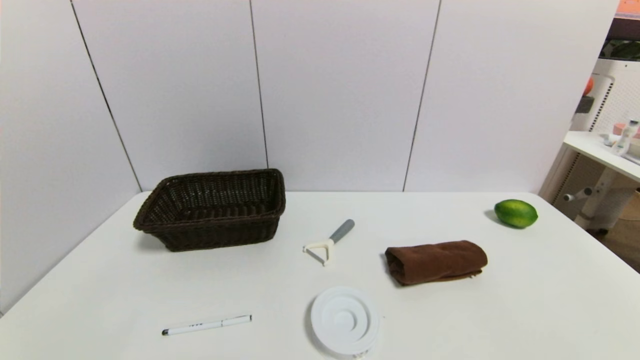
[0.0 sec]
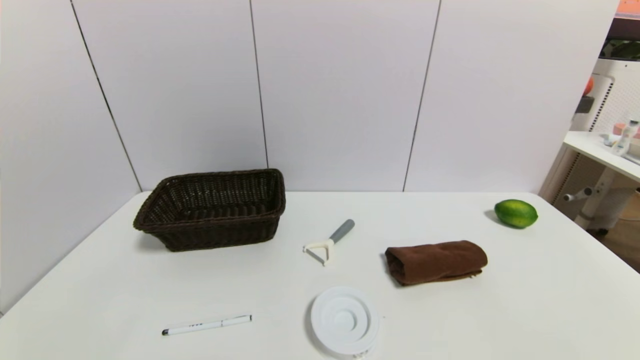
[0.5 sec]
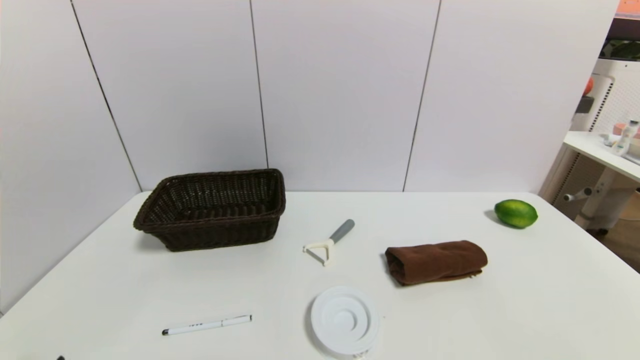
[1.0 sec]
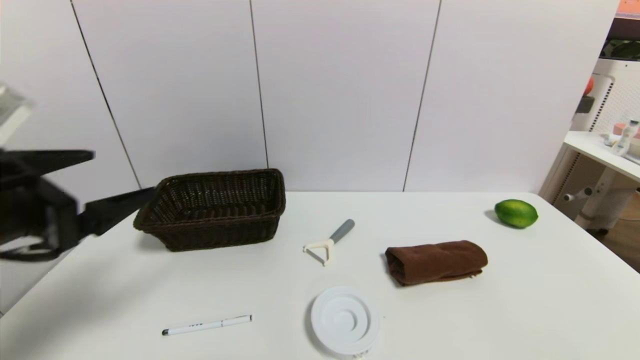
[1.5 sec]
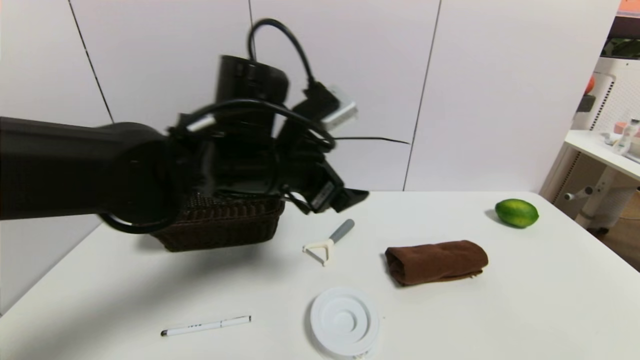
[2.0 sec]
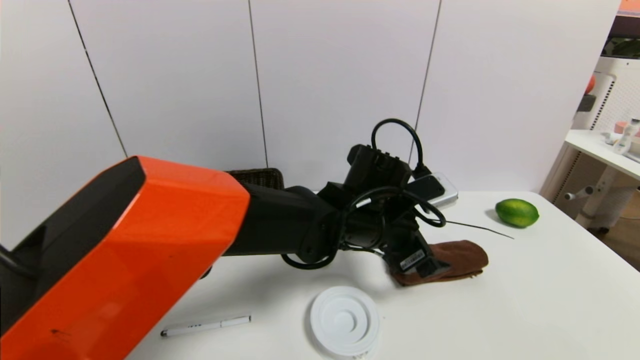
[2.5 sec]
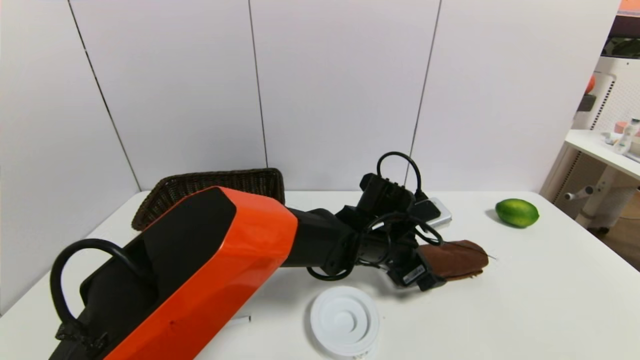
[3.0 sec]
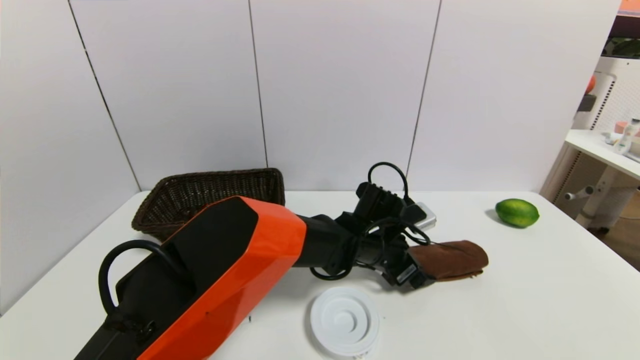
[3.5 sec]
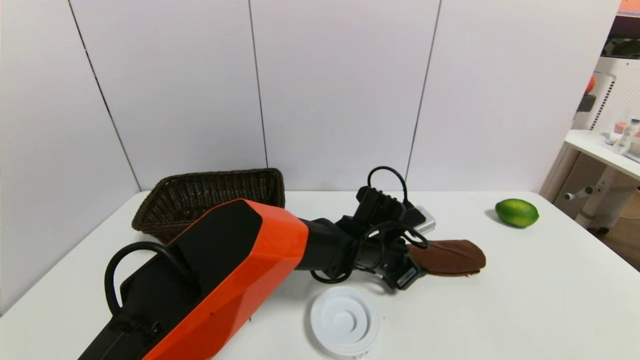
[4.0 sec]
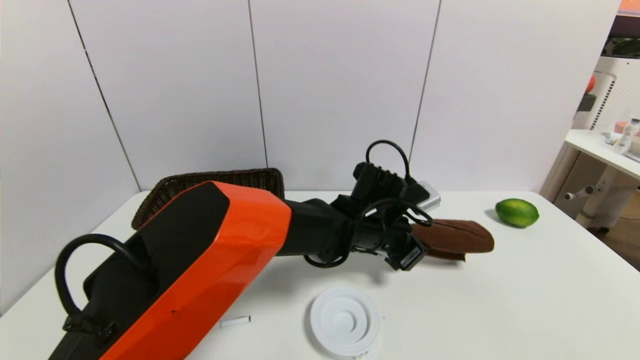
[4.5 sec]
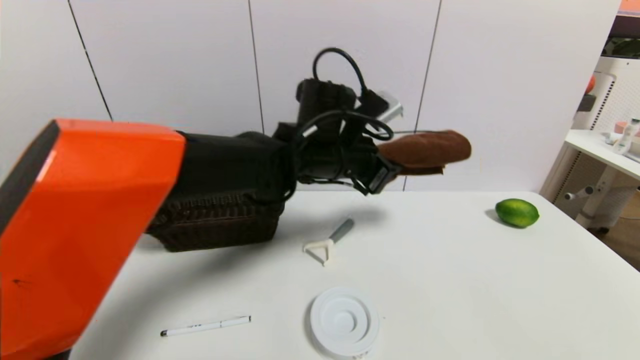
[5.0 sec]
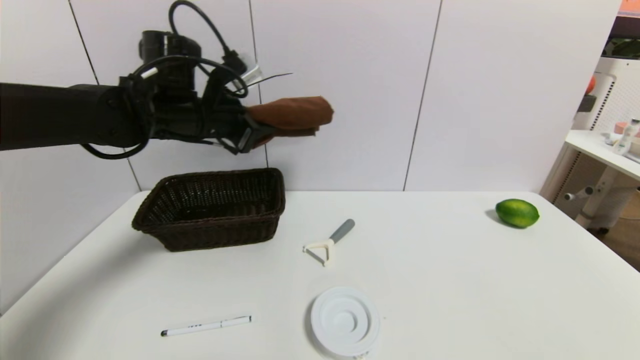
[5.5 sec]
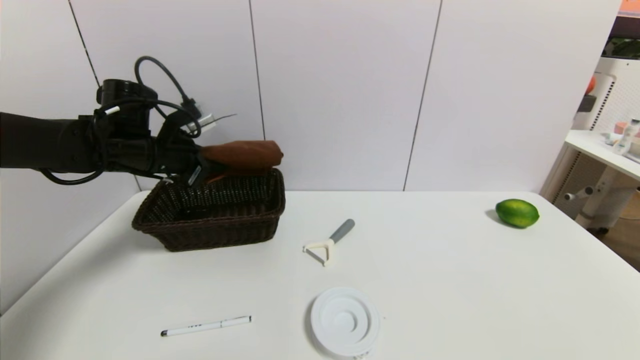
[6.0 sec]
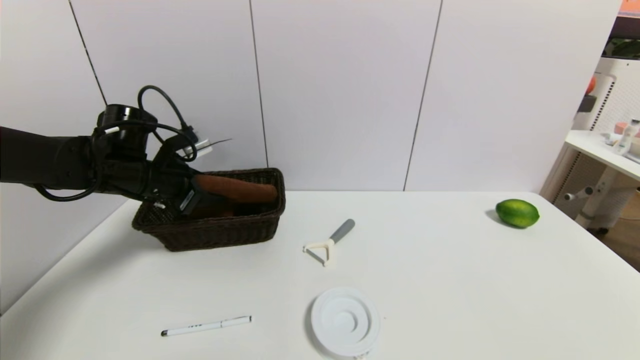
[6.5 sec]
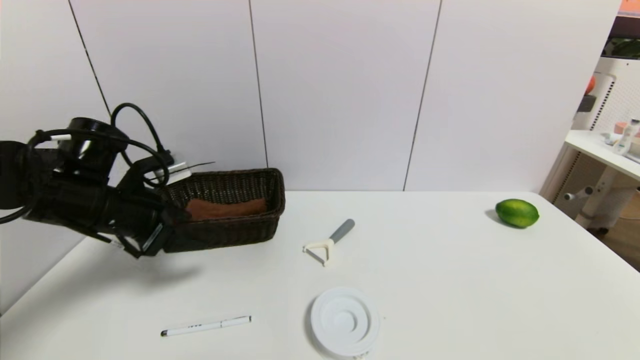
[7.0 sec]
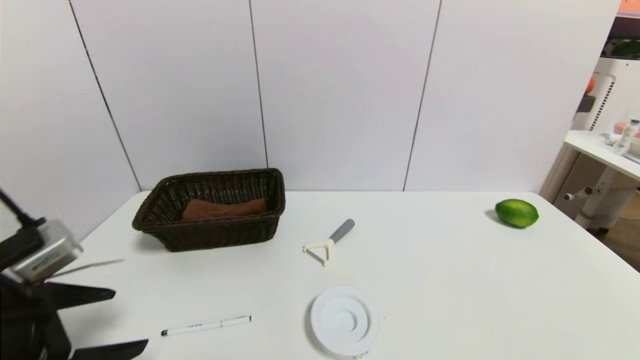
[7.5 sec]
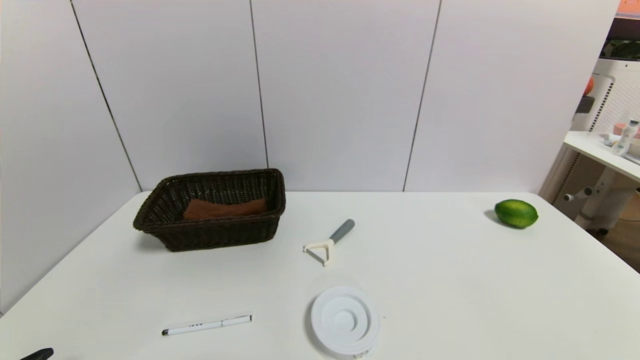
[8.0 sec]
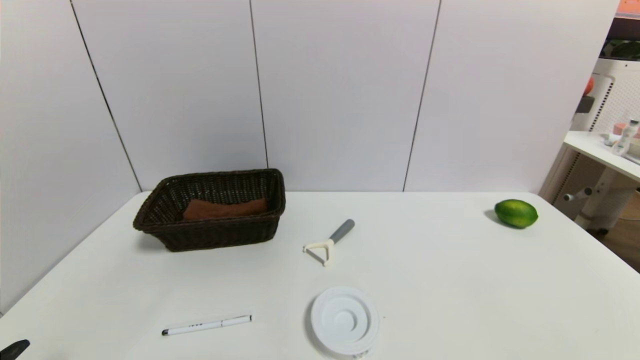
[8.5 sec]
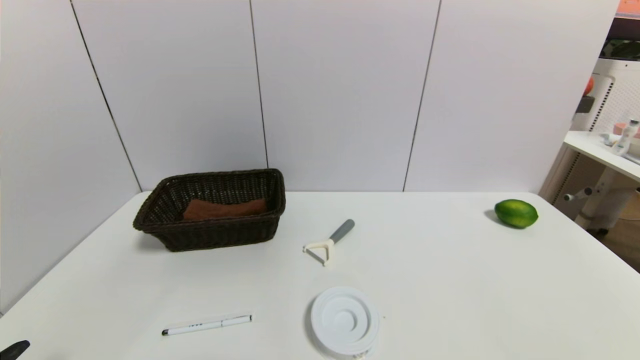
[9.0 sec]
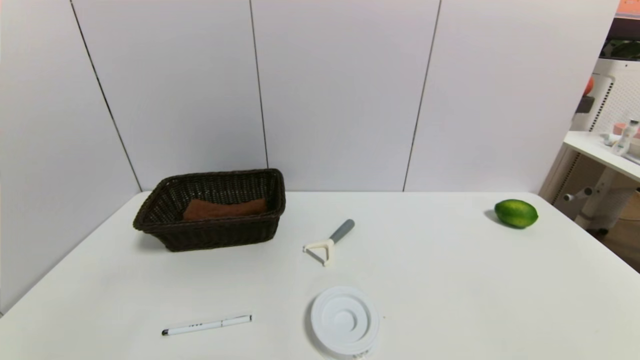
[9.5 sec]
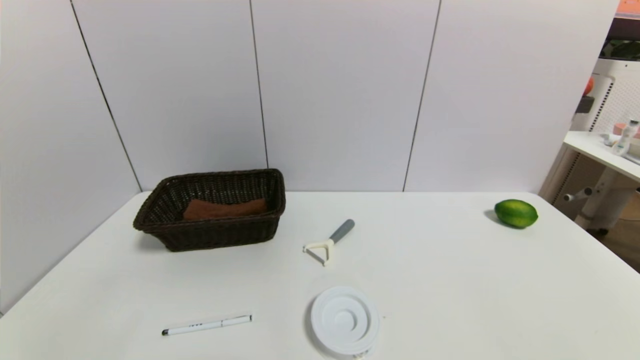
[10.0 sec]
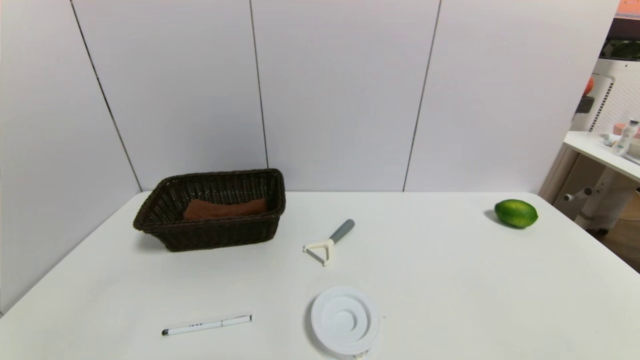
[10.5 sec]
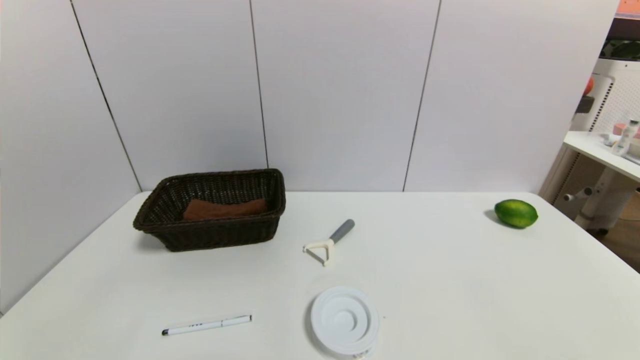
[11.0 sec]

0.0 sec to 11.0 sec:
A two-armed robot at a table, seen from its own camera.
Task of the whole recording: use a gripper to pick the target object and place on the brown basket.
Step, 0.0 sec to 4.0 sec: Grasp the brown towel with the left gripper.
Step, 4.5 sec to 6.5 sec: Place the brown towel into the basket with the left gripper.
0.0 sec to 2.0 sec: The left gripper heads forward, to the right and upward, covering approximately 40 cm.
2.0 sec to 3.5 sec: The left gripper goes approximately 20 cm downward and to the right.
3.5 sec to 5.5 sec: The left gripper is displaced to the left and upward by roughly 35 cm, and closes its fingers.
5.5 sec to 7.5 sec: The left gripper is displaced backward by roughly 30 cm, and opens its fingers.
7.5 sec to 9.0 sec: The left gripper moves backward and downward, roughly 15 cm.
